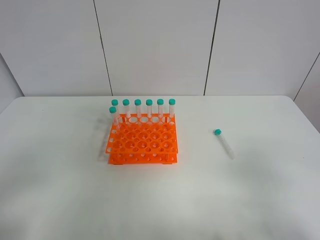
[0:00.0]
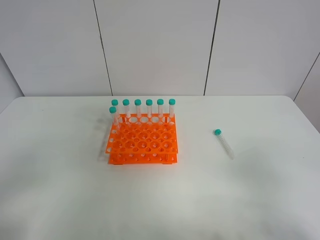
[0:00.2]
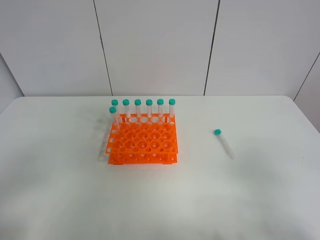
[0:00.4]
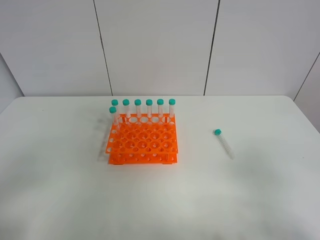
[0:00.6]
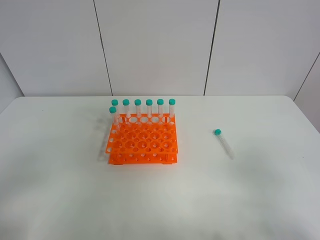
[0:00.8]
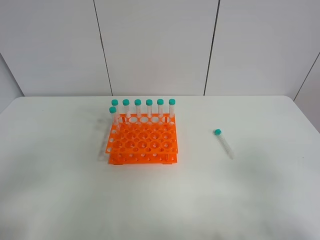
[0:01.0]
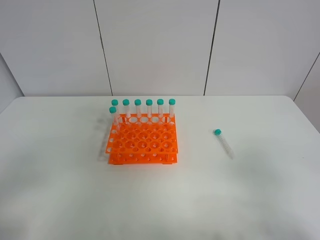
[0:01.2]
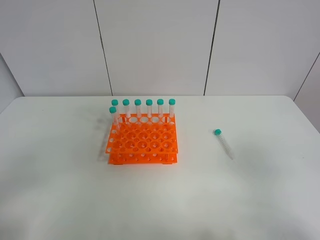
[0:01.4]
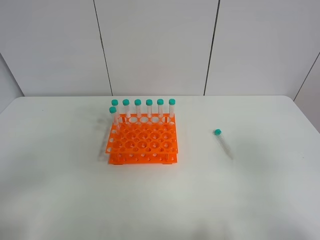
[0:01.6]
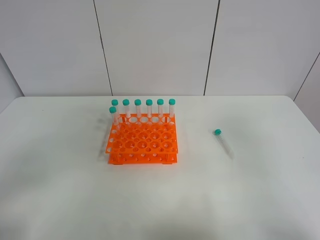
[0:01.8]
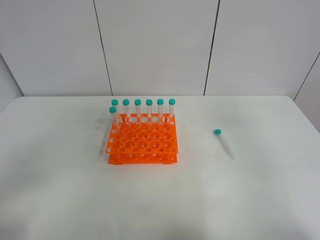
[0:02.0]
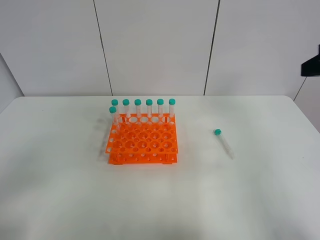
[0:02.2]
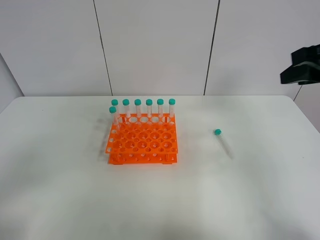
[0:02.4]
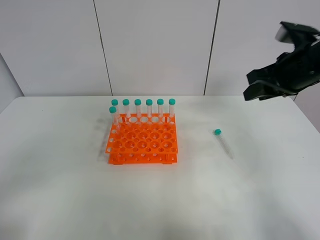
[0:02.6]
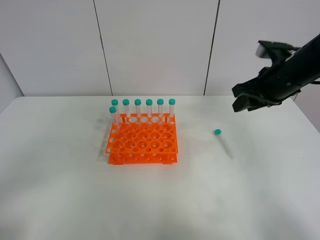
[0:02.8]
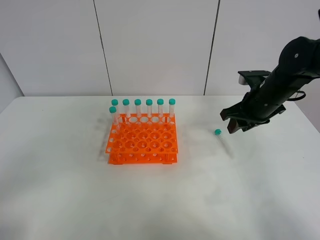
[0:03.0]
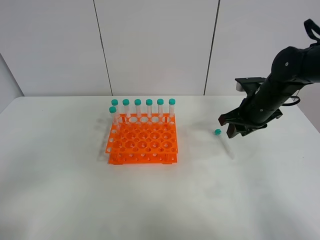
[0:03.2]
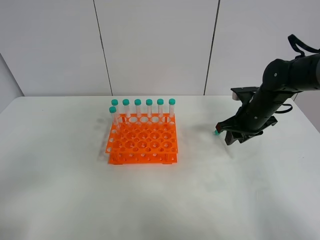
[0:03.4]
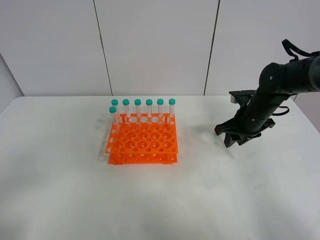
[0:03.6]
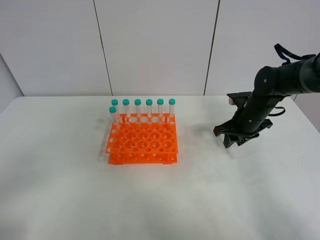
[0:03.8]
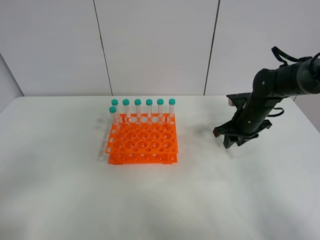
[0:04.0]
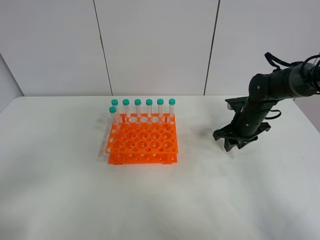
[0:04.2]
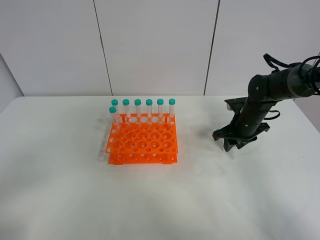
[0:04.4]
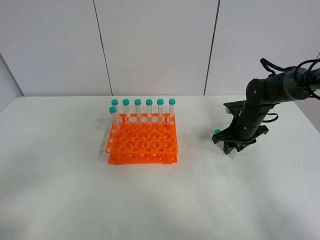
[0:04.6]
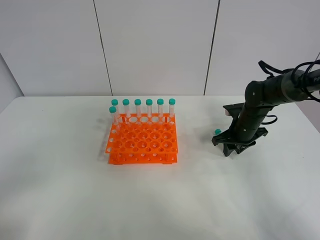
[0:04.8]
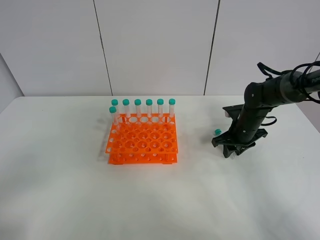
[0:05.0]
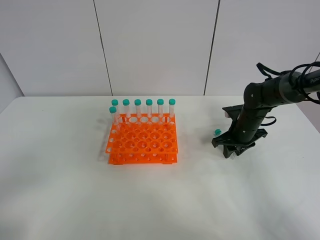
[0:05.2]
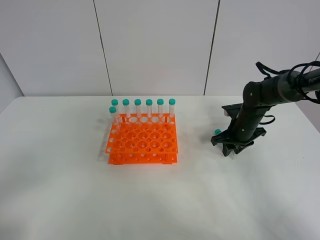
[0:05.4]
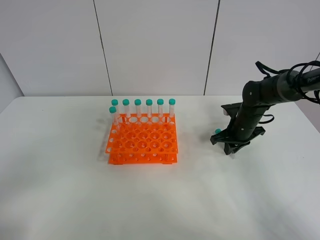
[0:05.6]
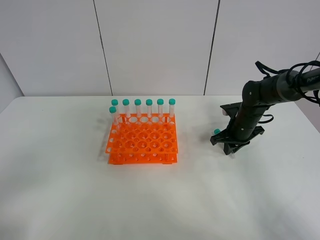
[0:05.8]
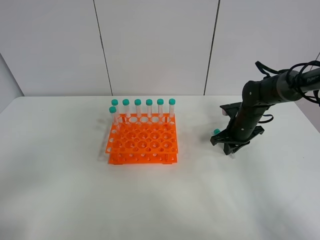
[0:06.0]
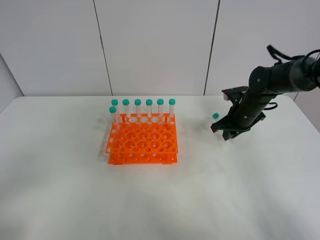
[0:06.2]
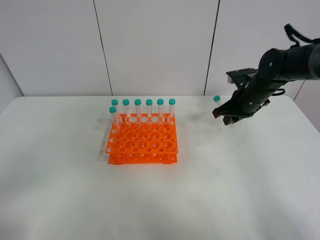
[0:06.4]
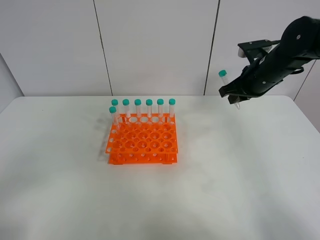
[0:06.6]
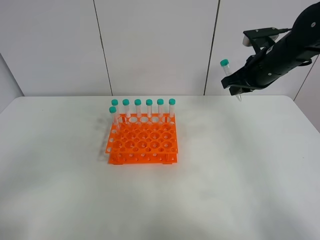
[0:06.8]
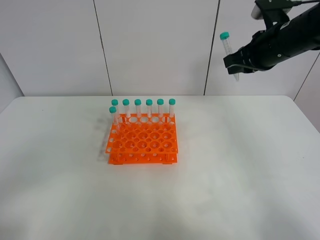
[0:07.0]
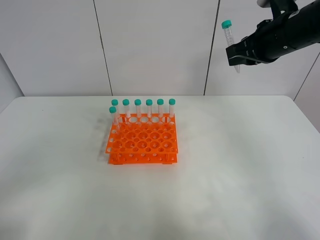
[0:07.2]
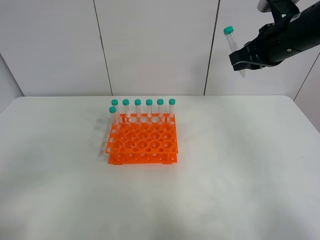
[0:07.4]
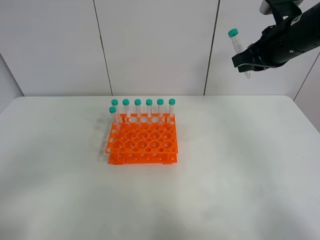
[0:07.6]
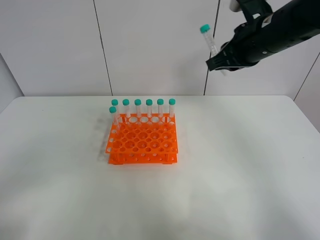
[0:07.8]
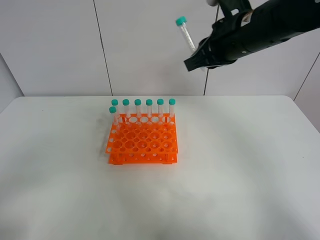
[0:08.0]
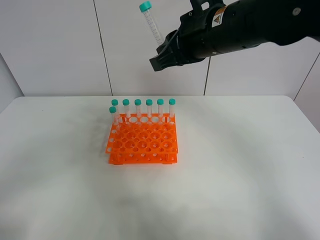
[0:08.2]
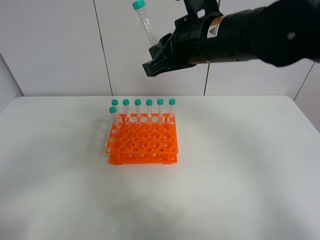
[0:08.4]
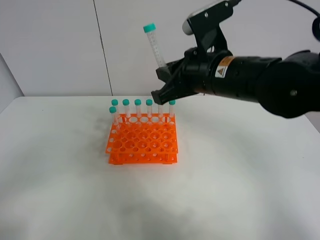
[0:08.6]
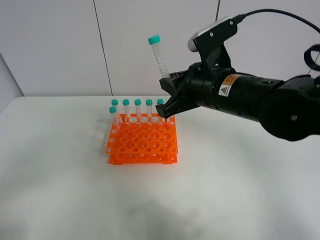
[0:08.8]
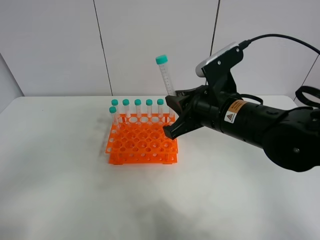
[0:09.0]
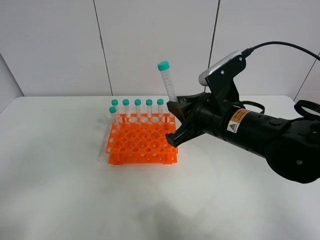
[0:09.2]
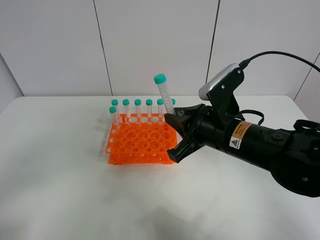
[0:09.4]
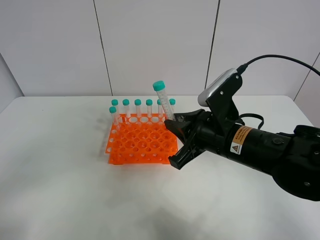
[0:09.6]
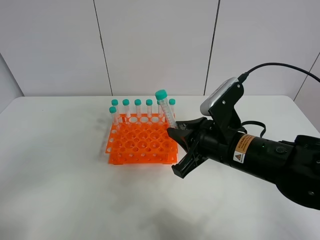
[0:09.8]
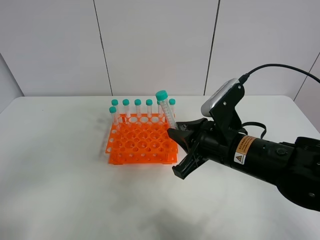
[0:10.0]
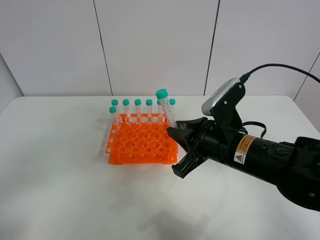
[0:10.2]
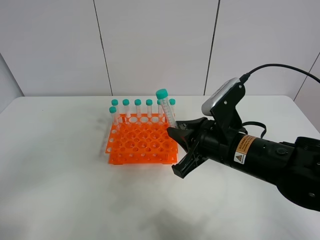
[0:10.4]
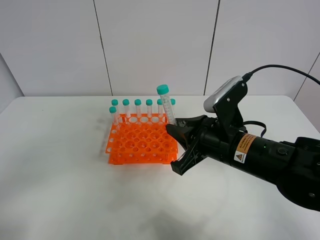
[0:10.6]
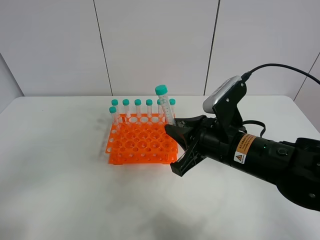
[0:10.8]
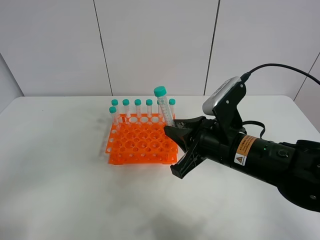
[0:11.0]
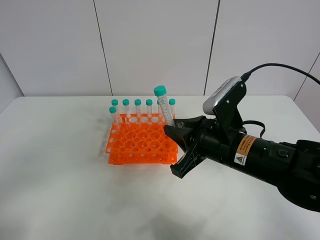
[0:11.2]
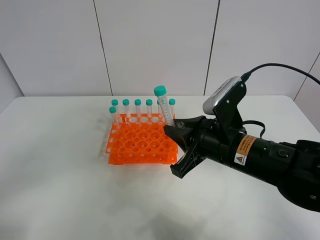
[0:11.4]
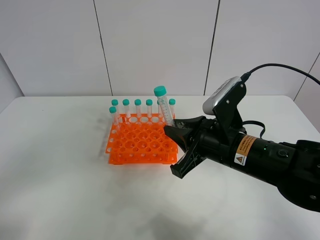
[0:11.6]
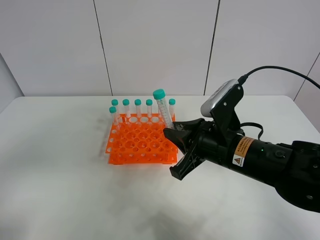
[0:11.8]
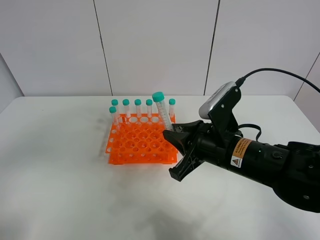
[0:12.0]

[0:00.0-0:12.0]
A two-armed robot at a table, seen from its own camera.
Task of the whole recording: Put the test tube on the table back onto the test tube rack.
Step, 0:00.0 to 0:06.6: Pick up the test tube with the right gripper.
0:01.6 to 0:03.0: The right gripper goes roughly 30 cm forward.
0:03.0 to 0:04.4: The right gripper travels downward by some 10 cm.
0:04.4 to 0:06.0: The right gripper closes up.
0:06.0 to 0:07.6: The right gripper is displaced upward by about 25 cm.
0:07.6 to 0:09.0: The right gripper shifts some 20 cm to the left, backward and downward.
0:09.0 to 0:10.4: The right gripper ends up some 5 cm from where it was.
0:10.4 to 0:12.0: The left gripper heads upward, covering approximately 5 cm.

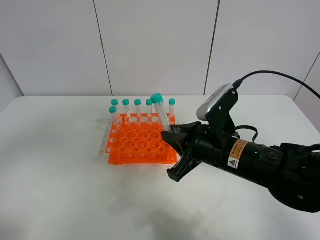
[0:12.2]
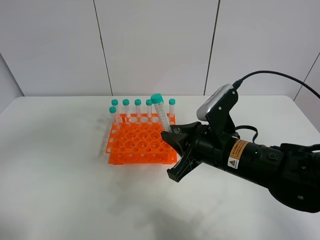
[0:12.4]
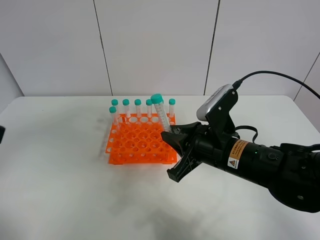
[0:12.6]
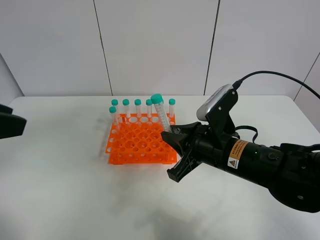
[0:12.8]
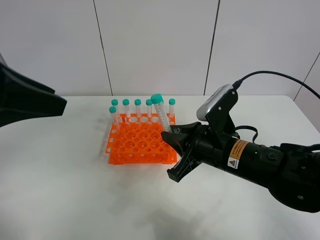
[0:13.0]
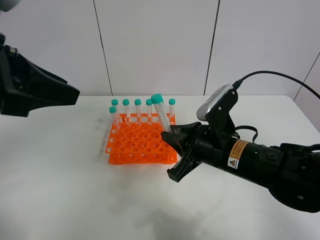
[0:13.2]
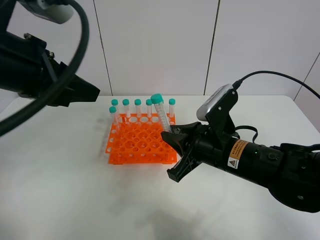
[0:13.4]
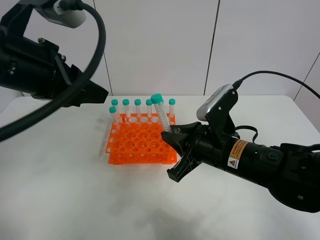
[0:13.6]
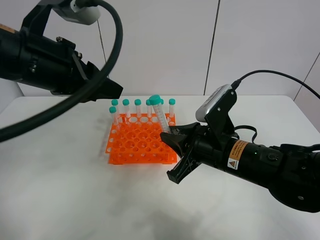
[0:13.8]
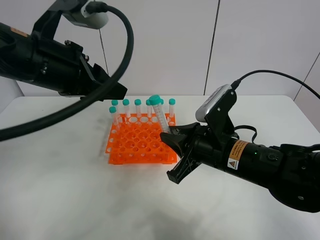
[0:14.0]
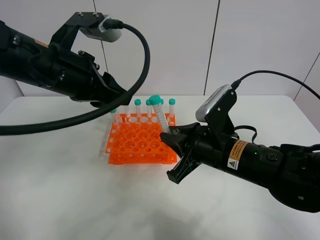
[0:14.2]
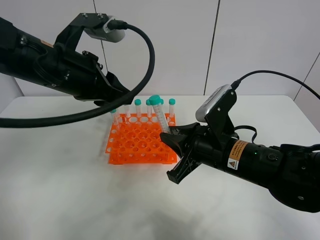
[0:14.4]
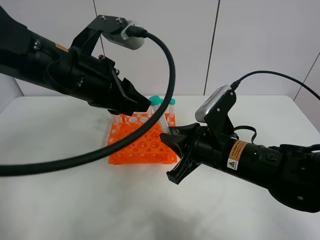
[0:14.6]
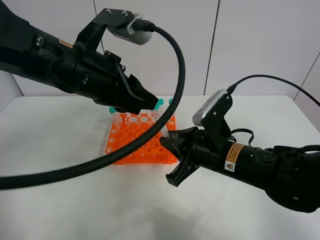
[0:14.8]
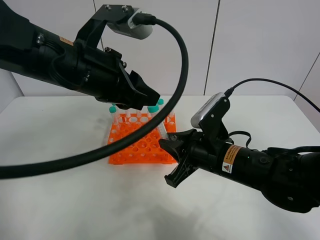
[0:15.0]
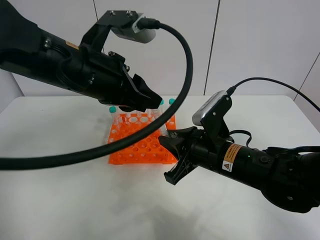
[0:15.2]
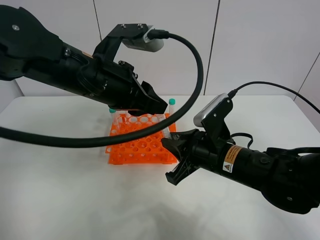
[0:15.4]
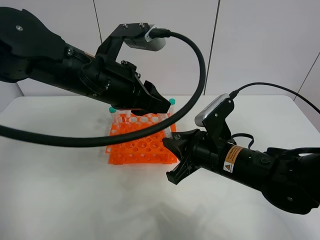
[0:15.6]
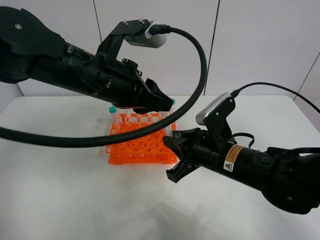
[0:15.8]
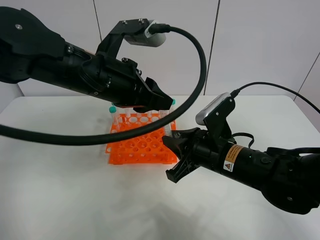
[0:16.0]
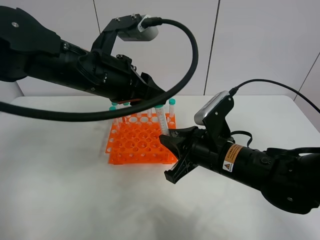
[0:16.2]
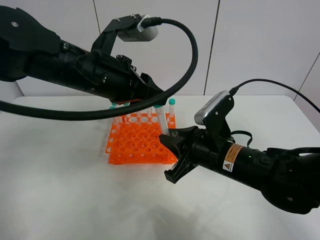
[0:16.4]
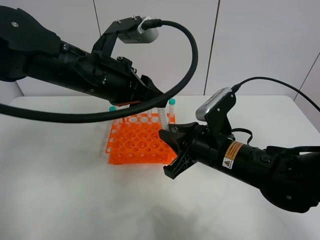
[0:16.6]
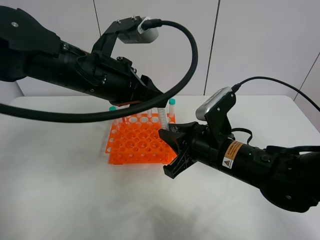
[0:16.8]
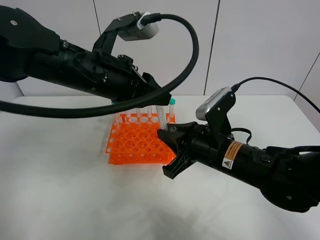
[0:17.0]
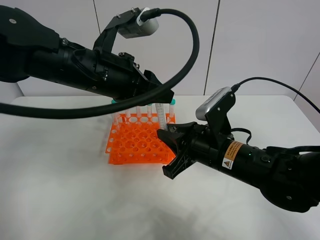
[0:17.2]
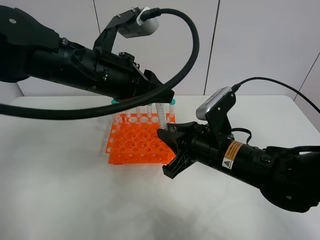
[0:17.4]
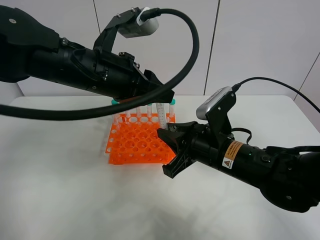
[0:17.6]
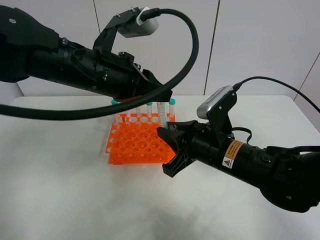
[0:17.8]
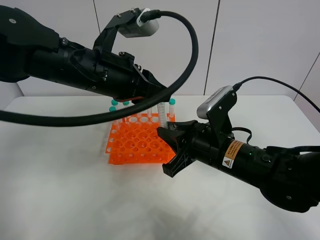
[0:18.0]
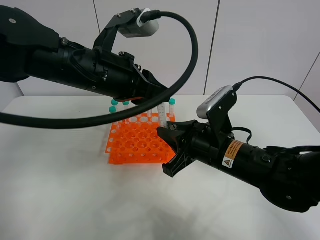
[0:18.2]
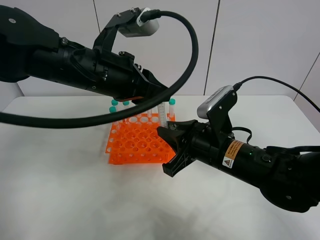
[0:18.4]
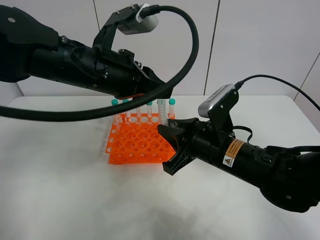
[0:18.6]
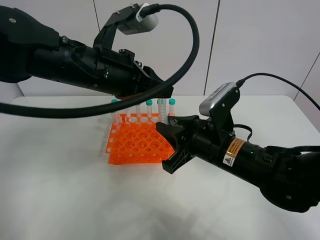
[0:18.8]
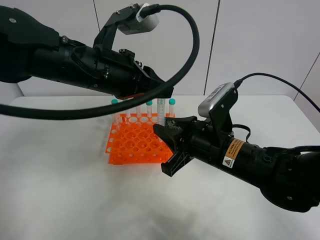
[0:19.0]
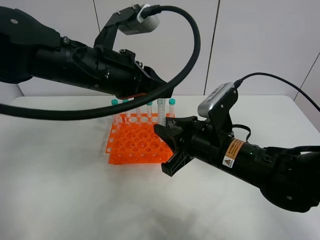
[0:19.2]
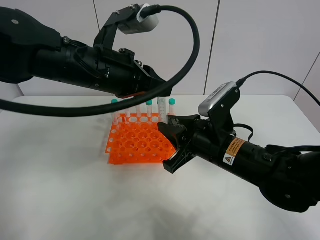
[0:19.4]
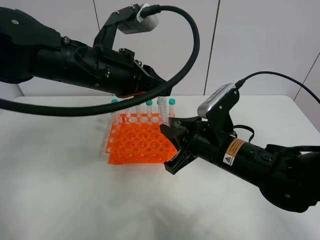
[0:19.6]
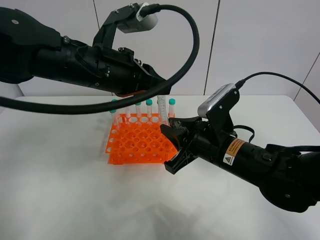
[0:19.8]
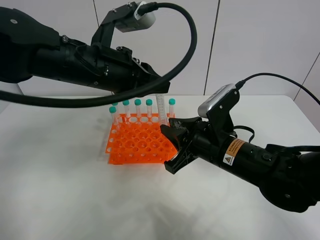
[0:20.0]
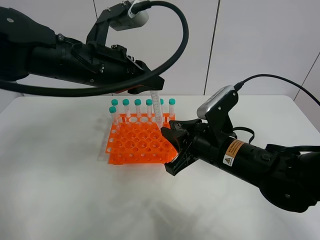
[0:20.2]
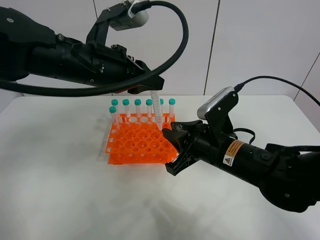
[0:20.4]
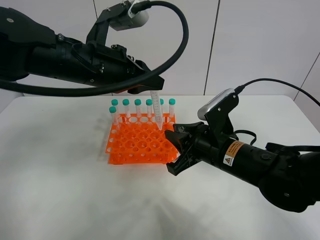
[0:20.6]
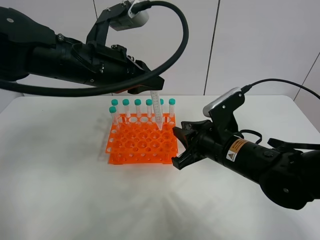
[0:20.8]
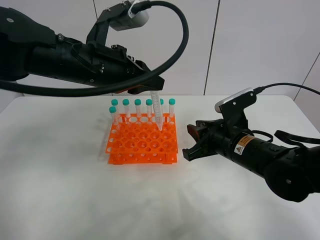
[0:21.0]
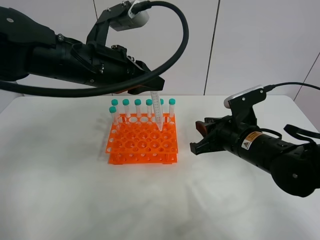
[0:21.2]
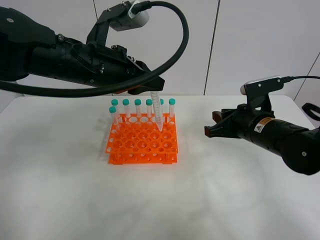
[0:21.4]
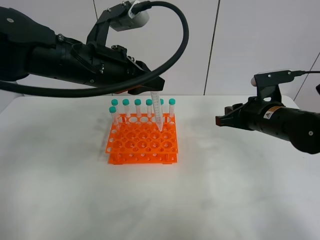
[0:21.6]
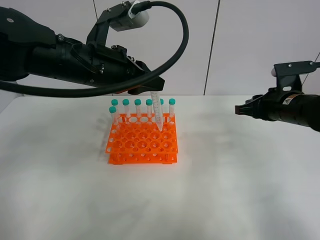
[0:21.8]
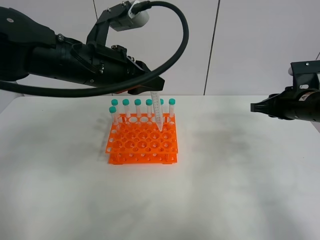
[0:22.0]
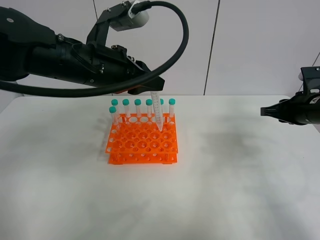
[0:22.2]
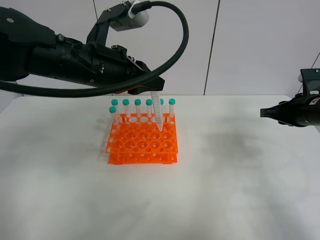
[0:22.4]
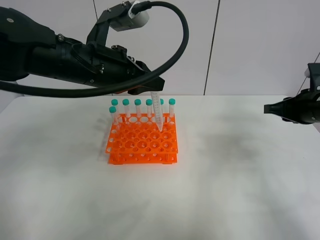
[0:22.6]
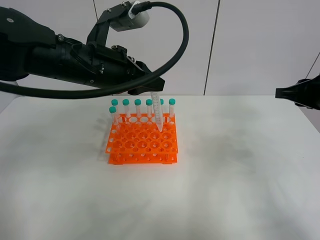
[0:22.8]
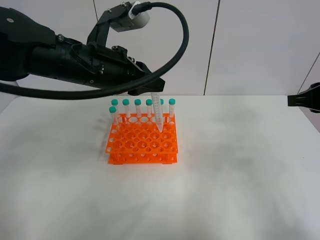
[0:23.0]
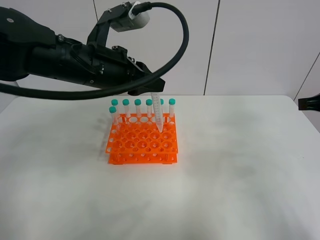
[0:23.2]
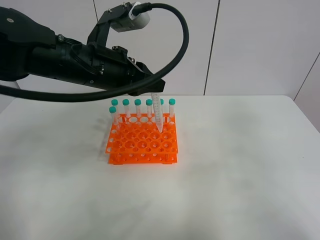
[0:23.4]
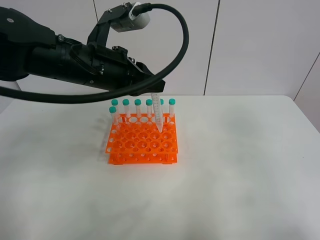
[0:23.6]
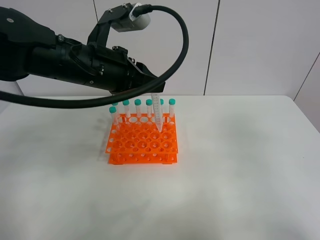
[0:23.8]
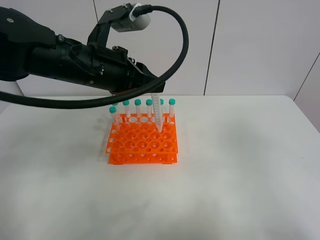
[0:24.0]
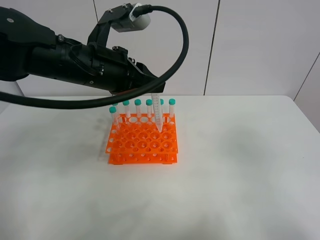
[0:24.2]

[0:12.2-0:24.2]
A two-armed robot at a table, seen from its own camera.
Task of the whole recording: Put the test tube on the table back onto the test tube rack.
Step, 0:12.2 to 0:21.2: Move the test tube from the right gripper to the left gripper.
0:12.2 to 0:13.8: The left gripper shifts approximately 20 cm forward and to the right.
0:13.8 to 0:15.2: The left gripper shifts approximately 5 cm to the right.
0:15.2 to 0:16.6: The grippers move only a little.
0:16.6 to 0:18.2: The left gripper closes up.
0:18.2 to 0:19.8: The grippers make only small movements.
0:19.8 to 0:21.2: The right gripper travels to the right by roughly 5 cm.
0:21.2 to 0:22.6: The right gripper is displaced to the right and upward by about 15 cm.
0:22.6 to 0:24.2: The right gripper is displaced backward and upward by roughly 30 cm.
